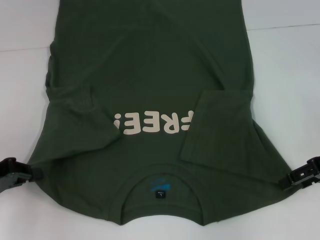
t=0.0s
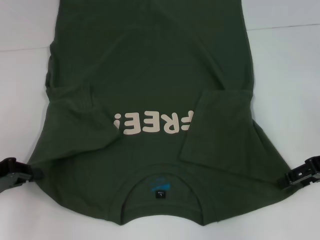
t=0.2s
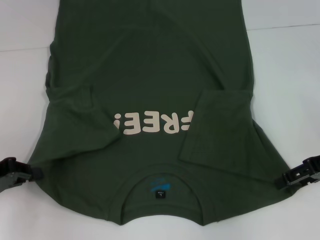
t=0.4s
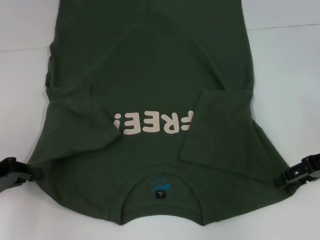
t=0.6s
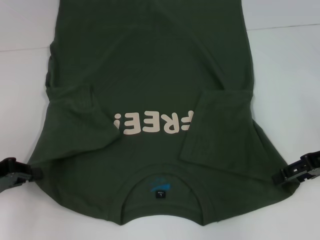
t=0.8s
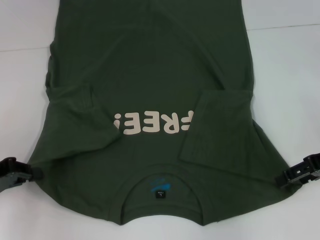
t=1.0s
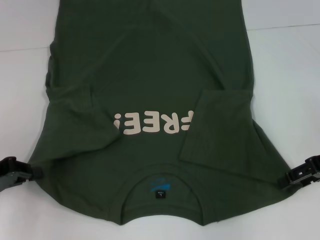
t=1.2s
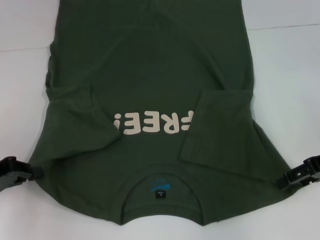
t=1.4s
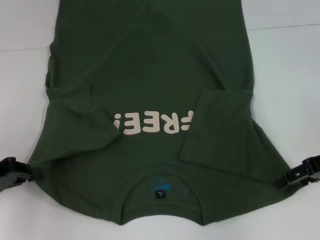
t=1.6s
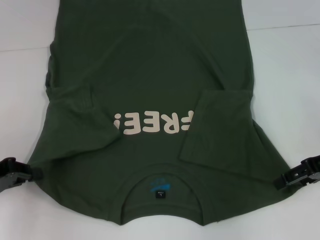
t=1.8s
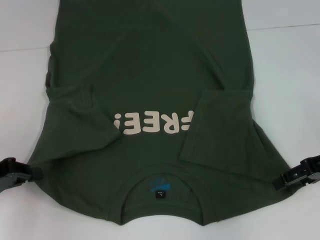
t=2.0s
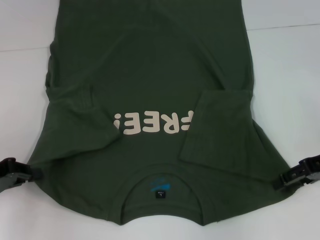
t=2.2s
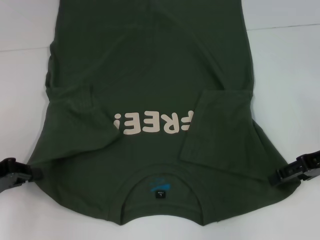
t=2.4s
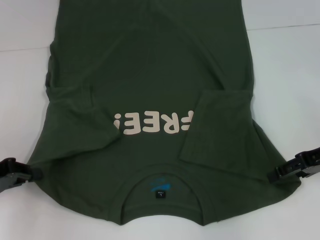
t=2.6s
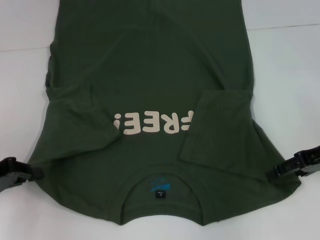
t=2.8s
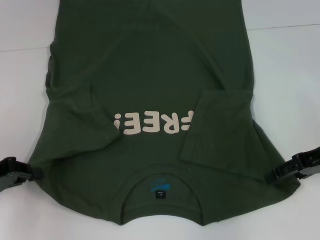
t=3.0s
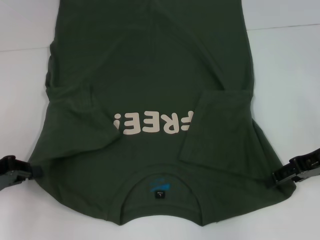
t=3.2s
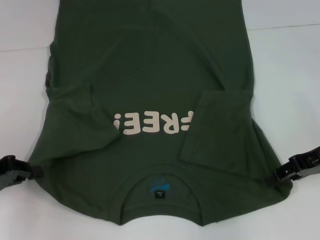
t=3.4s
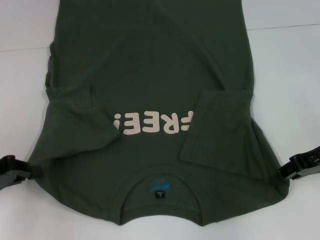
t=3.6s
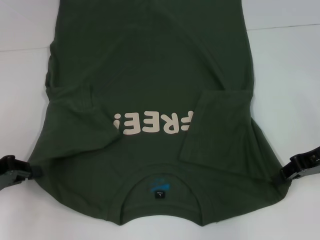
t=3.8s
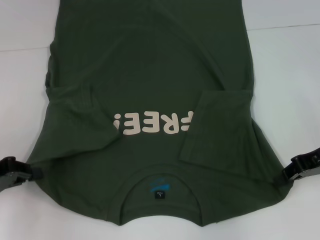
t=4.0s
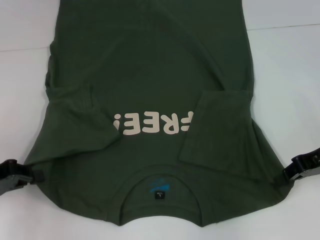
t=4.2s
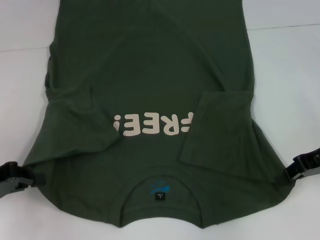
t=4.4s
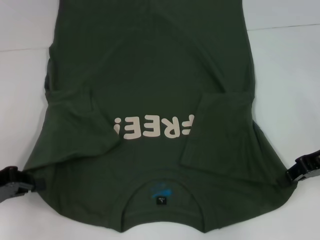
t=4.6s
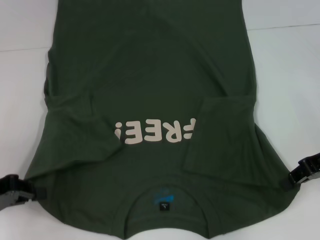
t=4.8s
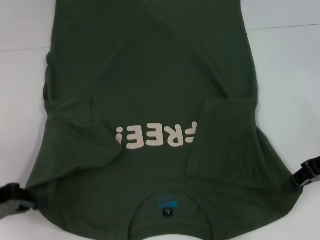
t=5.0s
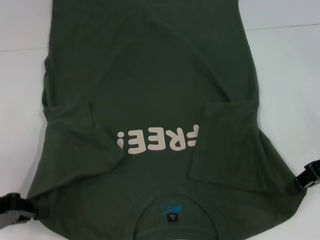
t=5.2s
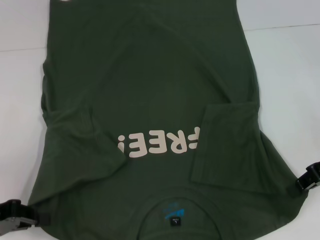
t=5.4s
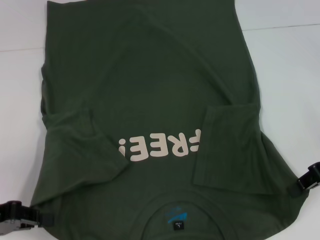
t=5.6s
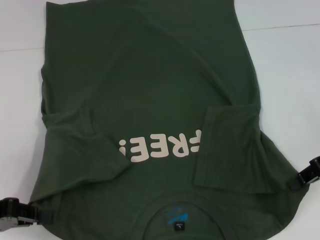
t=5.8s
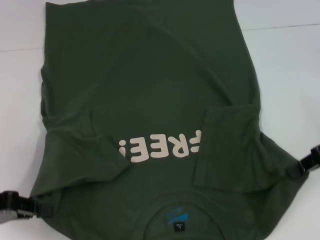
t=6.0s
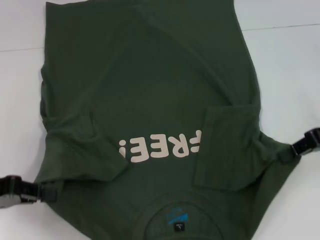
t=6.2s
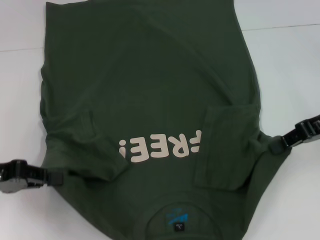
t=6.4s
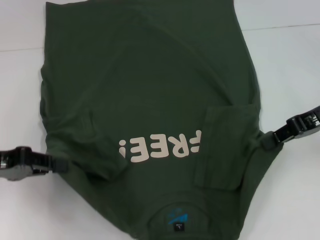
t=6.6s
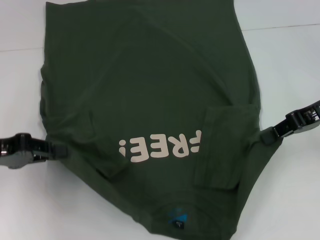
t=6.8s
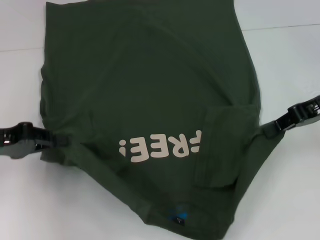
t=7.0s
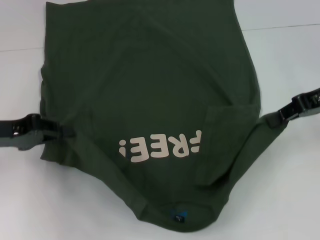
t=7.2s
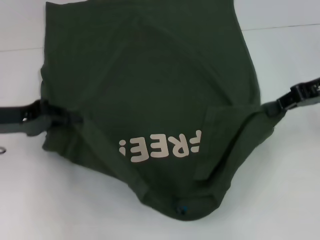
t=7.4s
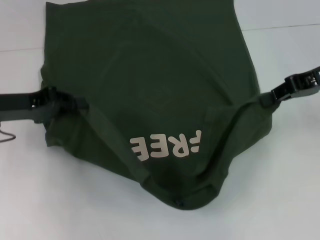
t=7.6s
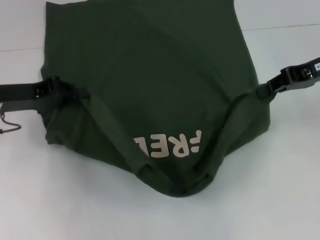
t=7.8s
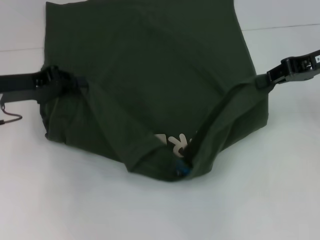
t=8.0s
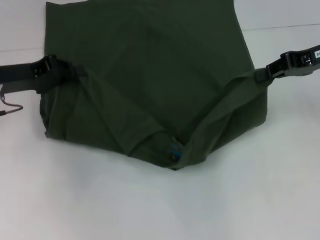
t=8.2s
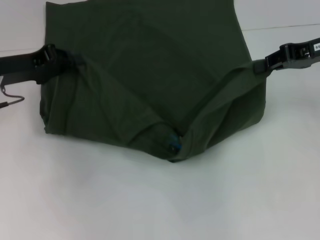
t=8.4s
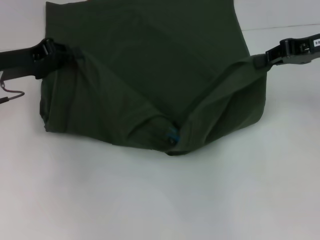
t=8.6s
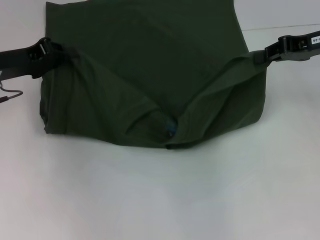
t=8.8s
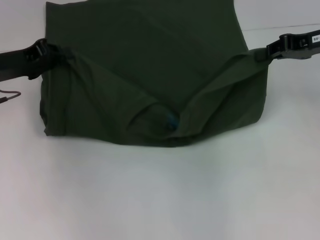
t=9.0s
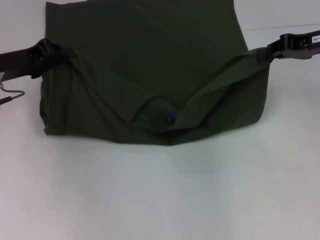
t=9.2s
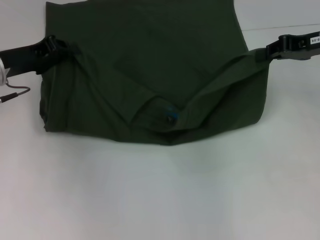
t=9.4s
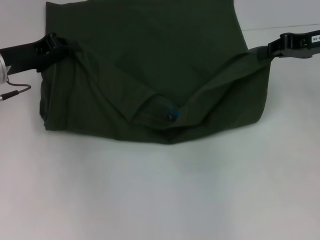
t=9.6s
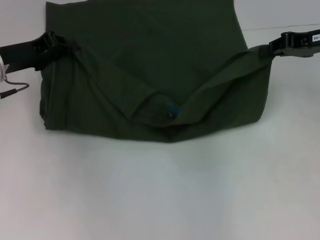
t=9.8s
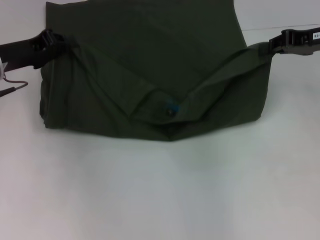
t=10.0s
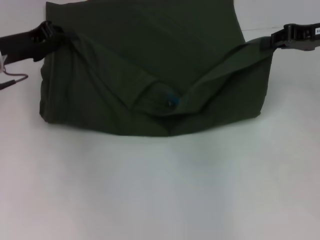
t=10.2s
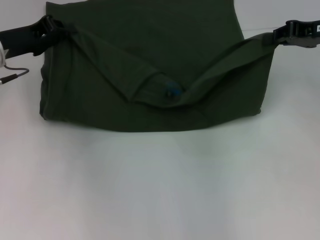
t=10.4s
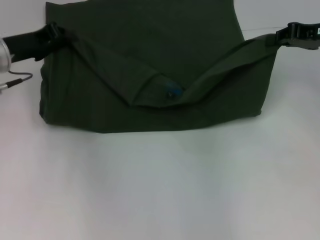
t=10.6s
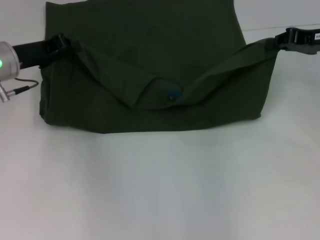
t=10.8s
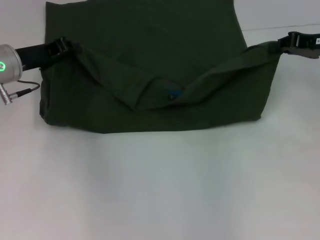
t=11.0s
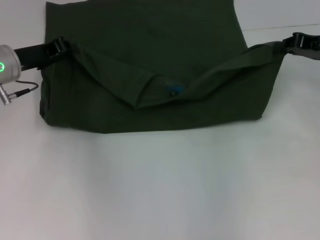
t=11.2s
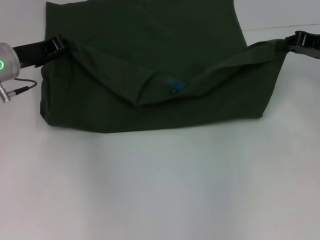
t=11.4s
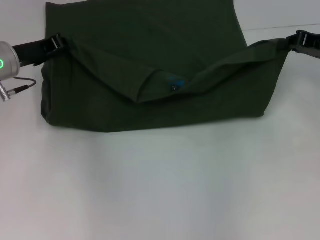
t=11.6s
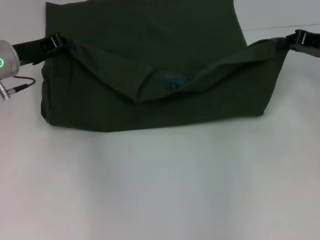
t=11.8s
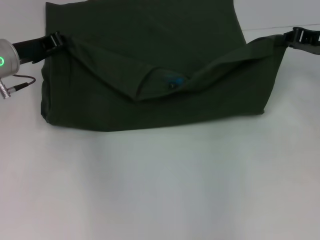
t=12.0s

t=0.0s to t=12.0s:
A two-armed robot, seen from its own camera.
Step, t=0.0s to t=4.2s: Grab the bottom right corner with your right hand.
t=0.0s to t=1.6s: Both grippers stay put.
t=1.6s to t=3.0s: Both grippers stay about where they are.
t=3.0s to t=4.4s: The right gripper closes its fingers.
t=6.0s to t=7.6s: The right gripper heads forward, covering about 5 cm. Meanwhile the left gripper travels forward and to the right by roughly 10 cm.
t=9.0s to t=10.4s: The grippers make only small movements.
t=10.4s to t=12.0s: There are only small adjustments of the grippers.

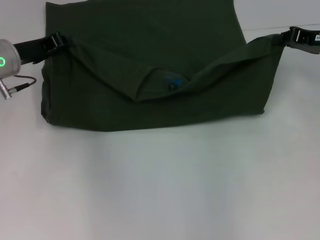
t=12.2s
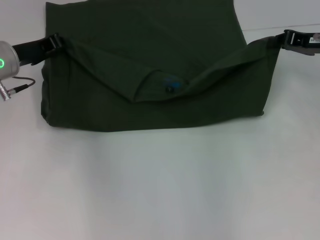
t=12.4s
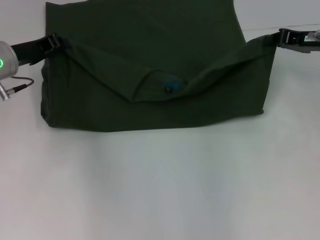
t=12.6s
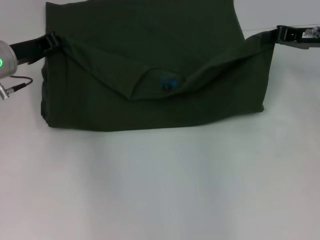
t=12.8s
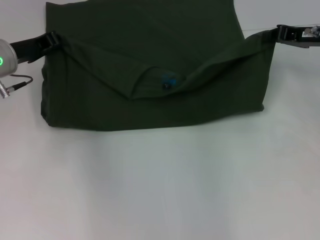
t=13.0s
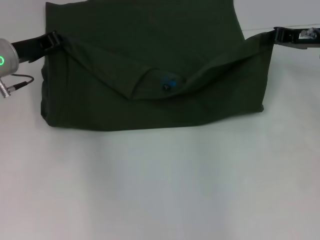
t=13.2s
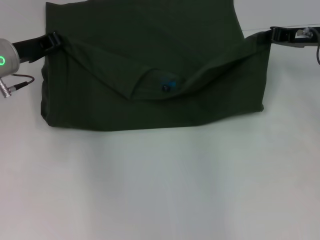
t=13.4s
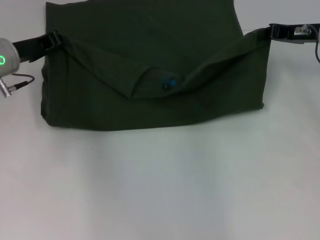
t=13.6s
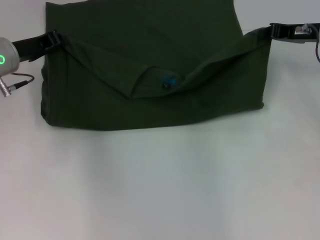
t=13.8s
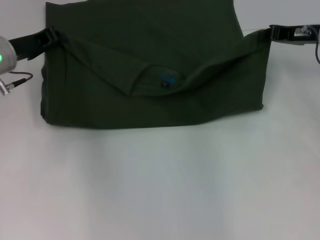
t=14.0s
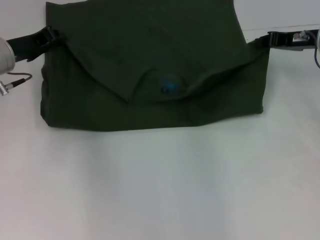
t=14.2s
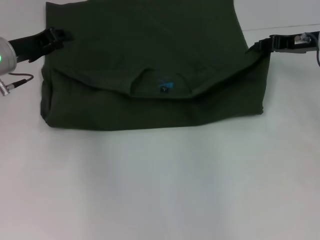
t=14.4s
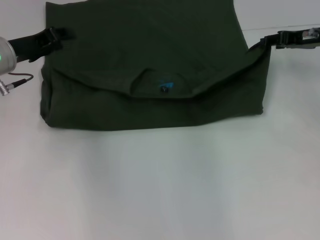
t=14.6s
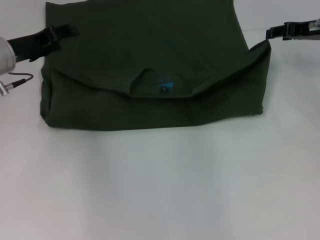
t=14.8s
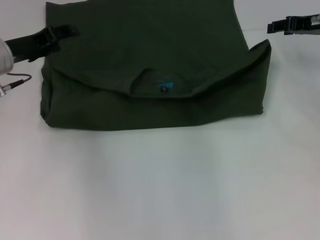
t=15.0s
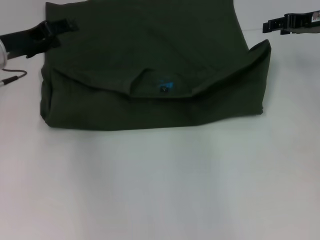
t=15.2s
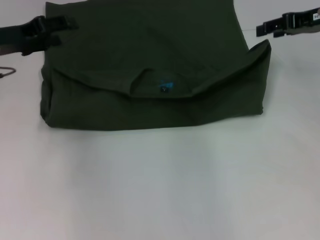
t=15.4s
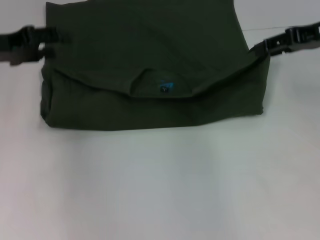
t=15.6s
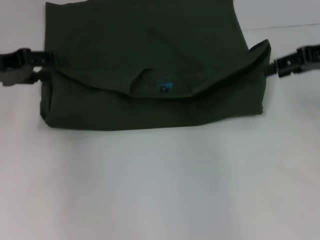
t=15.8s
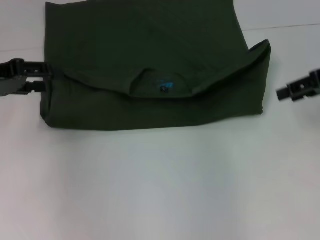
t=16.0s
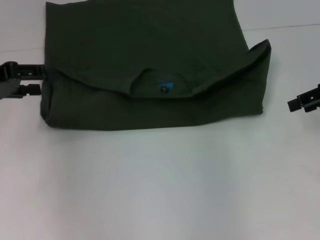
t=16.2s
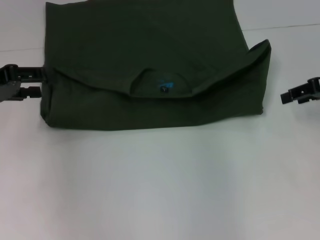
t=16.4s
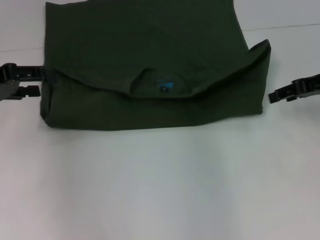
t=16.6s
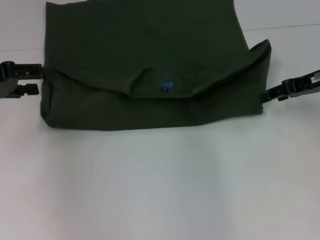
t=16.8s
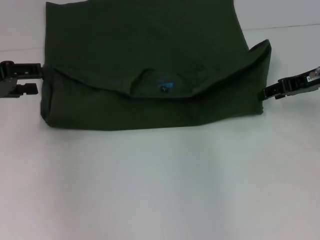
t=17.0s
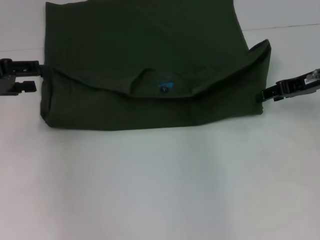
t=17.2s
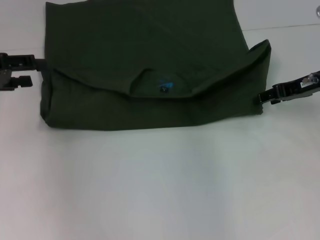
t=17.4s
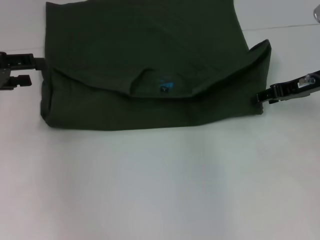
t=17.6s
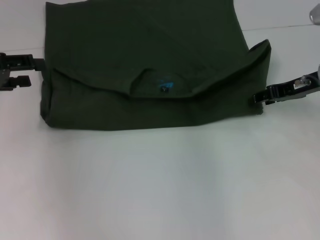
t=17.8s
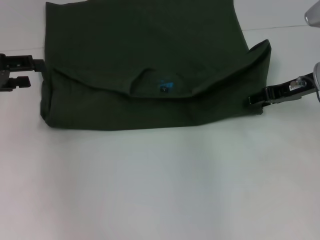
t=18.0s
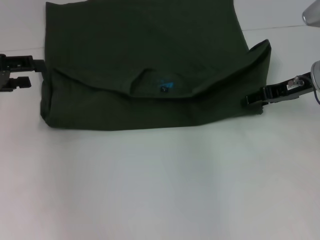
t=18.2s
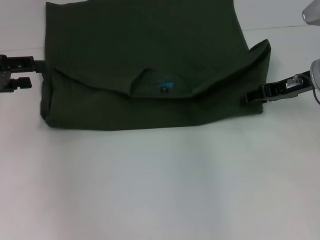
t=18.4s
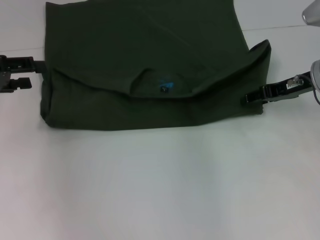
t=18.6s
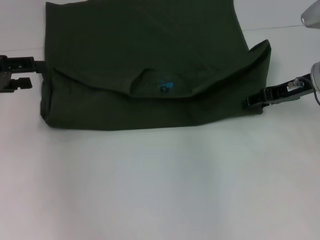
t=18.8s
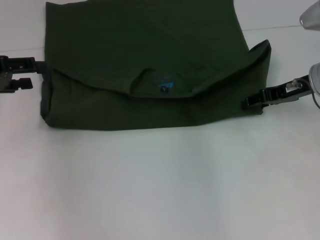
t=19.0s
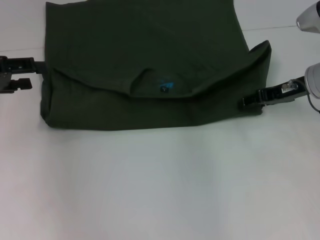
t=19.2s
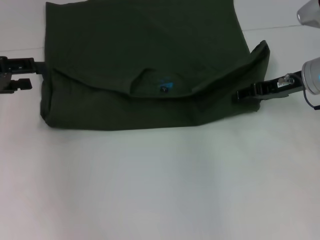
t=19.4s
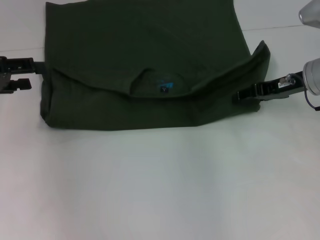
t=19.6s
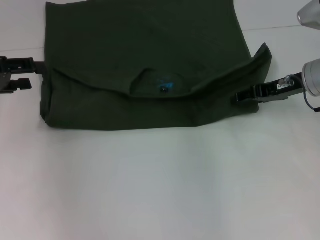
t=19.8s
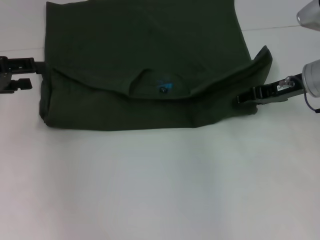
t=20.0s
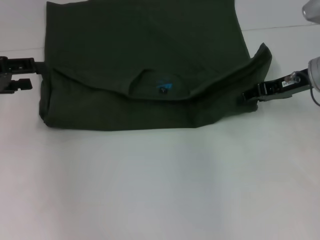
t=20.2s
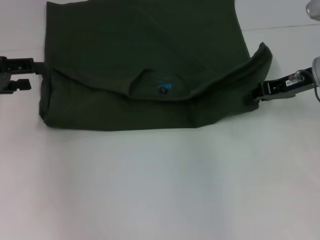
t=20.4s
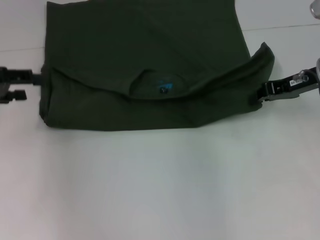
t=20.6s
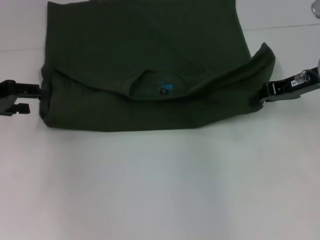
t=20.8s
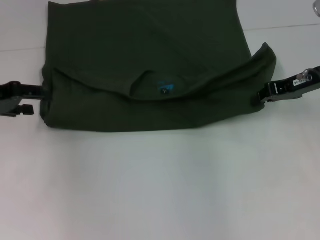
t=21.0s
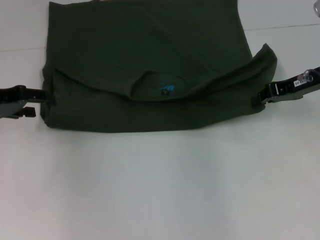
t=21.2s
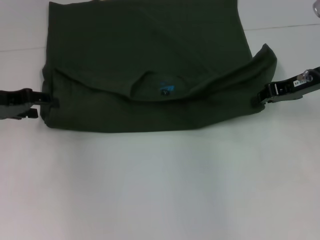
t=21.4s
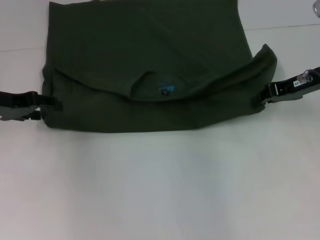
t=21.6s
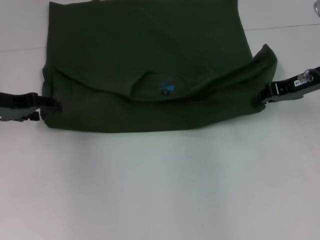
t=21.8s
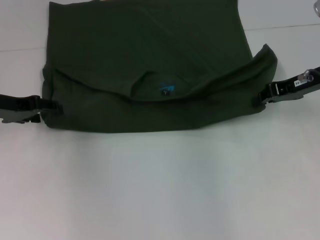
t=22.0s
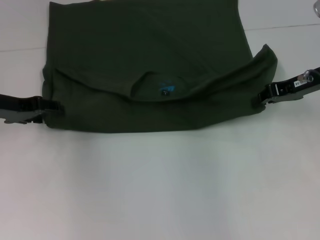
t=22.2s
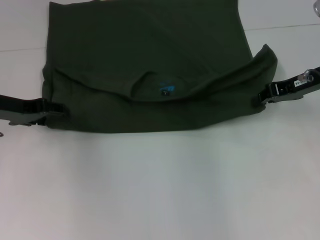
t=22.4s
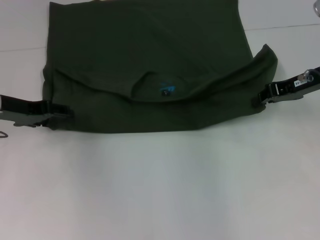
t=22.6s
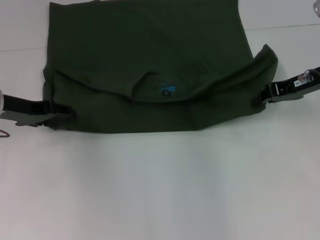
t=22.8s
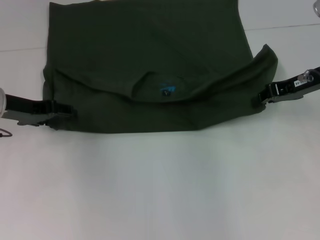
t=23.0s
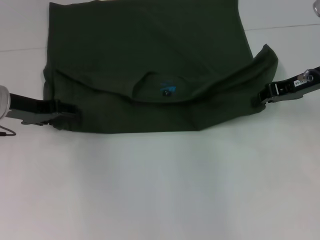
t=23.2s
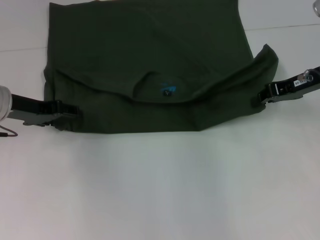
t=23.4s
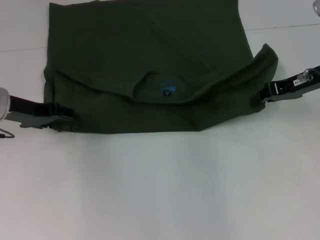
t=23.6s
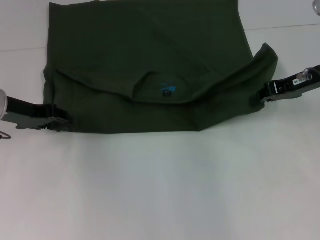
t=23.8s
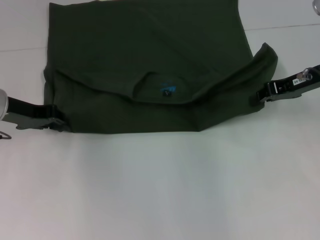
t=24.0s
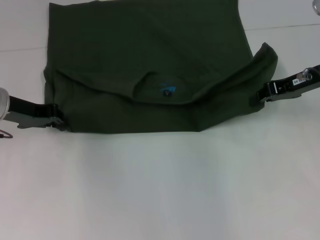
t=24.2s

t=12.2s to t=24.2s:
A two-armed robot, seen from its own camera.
Step, t=12.2s to t=16.4s: Fold the clothes with your left hand.
Step, t=12.2s to t=16.4s: Fold the clothes with your right hand.
t=12.2s to t=13.8s: There are only small adjustments of the grippers.
t=13.8s to t=15.2s: The right gripper opens its fingers; the left gripper opens up.
t=15.2s to t=16.6s: The right gripper heads backward, covering roughly 5 cm. The left gripper moves to the left and backward, approximately 10 cm.
t=16.6s to t=18.2s: The right gripper changes place by about 5 cm.
t=18.2s to t=19.8s: Both grippers stay about where they are.
t=19.8s to t=21.2s: The right gripper closes its fingers.
t=21.2s to t=22.6s: The grippers make only small movements.
t=22.6s to t=24.2s: The left gripper closes.
